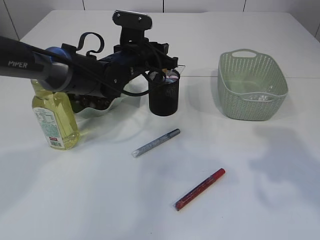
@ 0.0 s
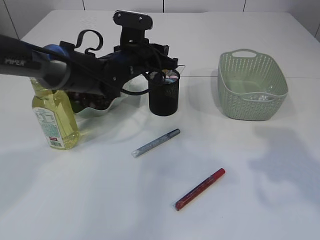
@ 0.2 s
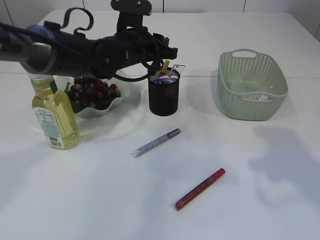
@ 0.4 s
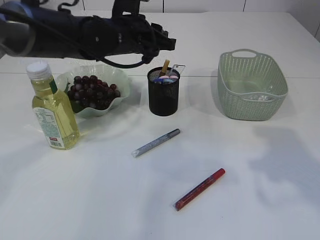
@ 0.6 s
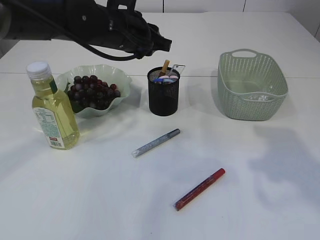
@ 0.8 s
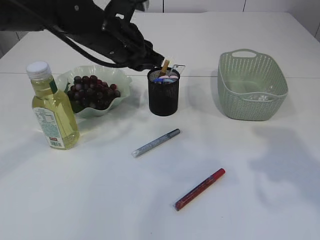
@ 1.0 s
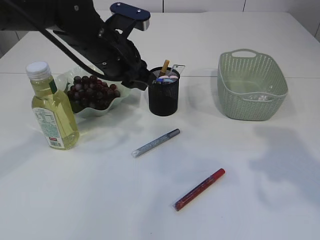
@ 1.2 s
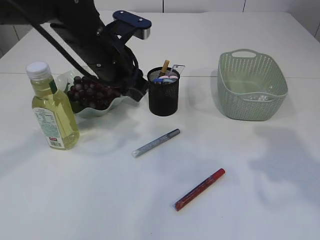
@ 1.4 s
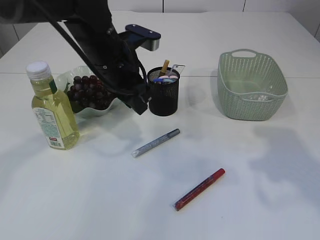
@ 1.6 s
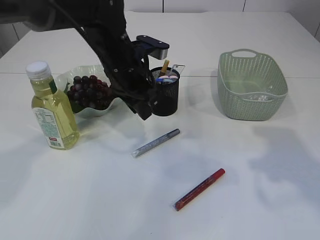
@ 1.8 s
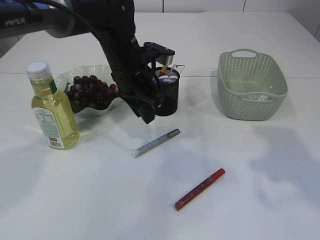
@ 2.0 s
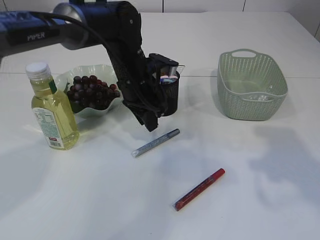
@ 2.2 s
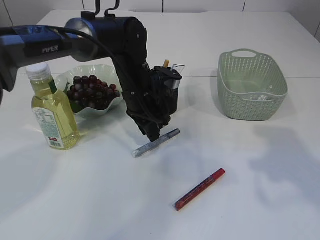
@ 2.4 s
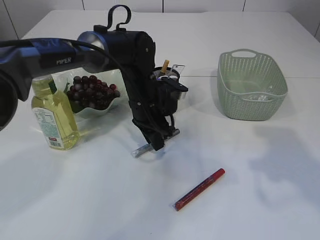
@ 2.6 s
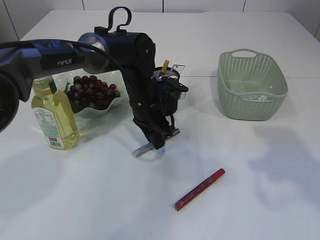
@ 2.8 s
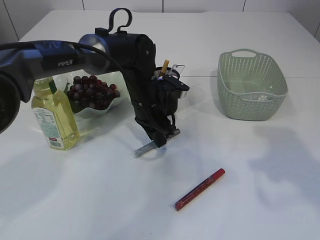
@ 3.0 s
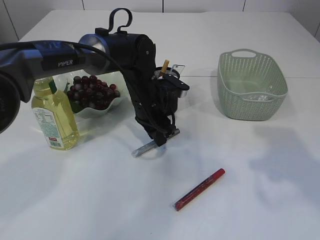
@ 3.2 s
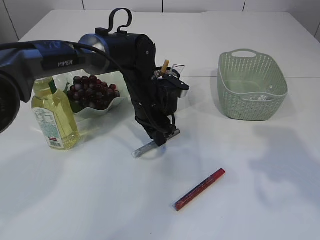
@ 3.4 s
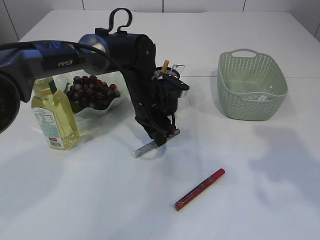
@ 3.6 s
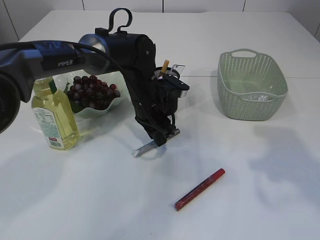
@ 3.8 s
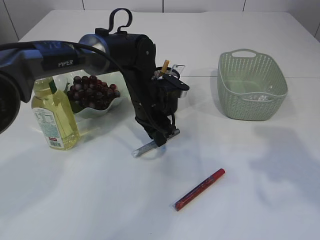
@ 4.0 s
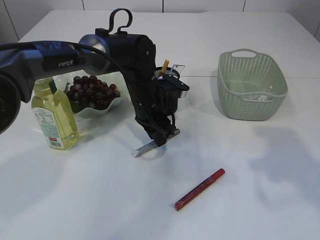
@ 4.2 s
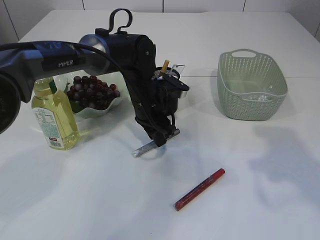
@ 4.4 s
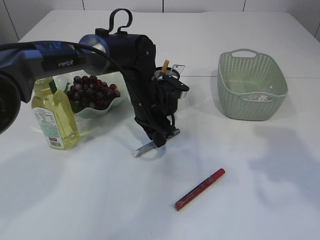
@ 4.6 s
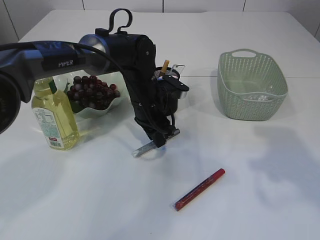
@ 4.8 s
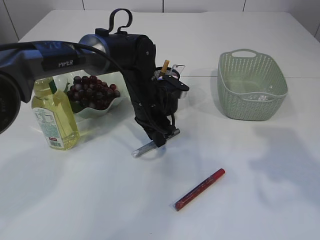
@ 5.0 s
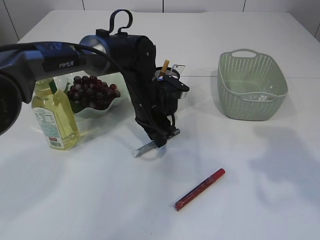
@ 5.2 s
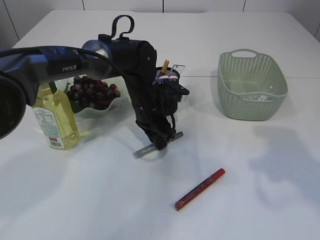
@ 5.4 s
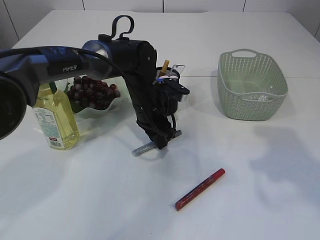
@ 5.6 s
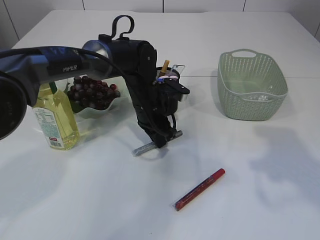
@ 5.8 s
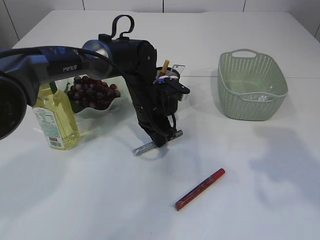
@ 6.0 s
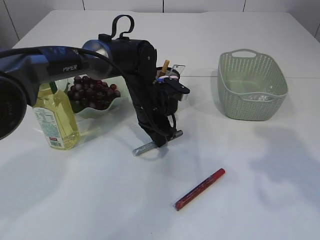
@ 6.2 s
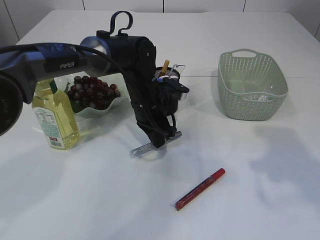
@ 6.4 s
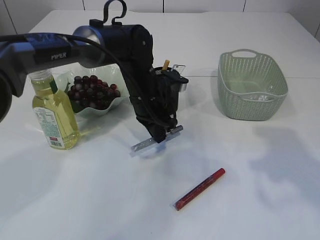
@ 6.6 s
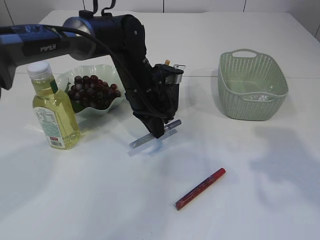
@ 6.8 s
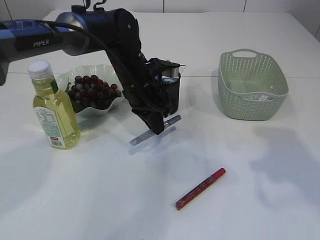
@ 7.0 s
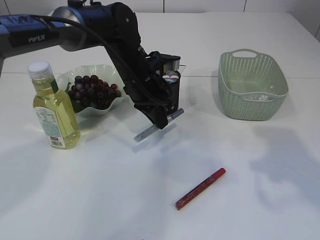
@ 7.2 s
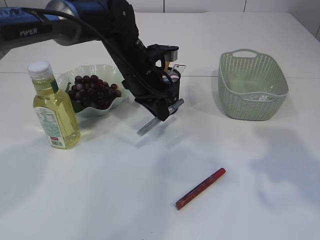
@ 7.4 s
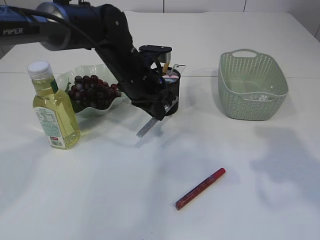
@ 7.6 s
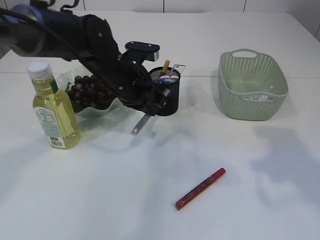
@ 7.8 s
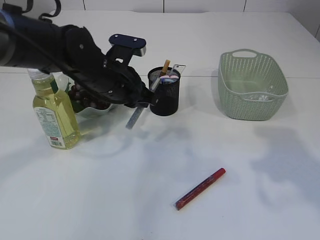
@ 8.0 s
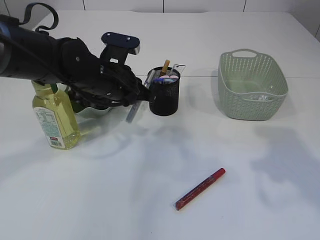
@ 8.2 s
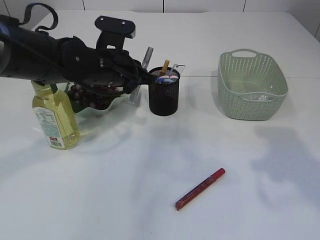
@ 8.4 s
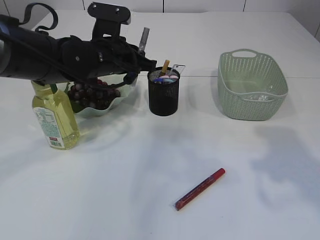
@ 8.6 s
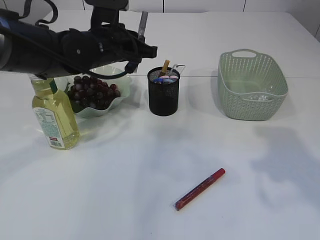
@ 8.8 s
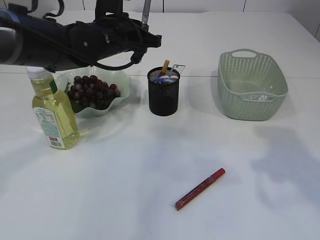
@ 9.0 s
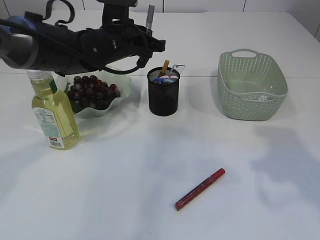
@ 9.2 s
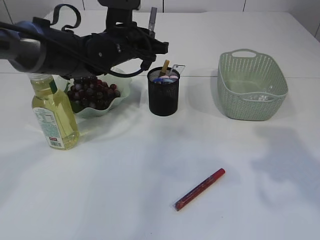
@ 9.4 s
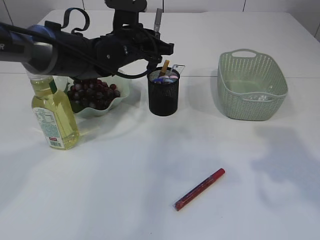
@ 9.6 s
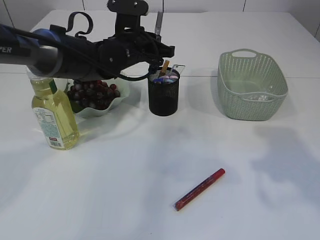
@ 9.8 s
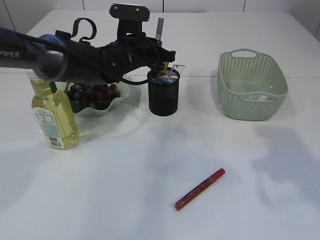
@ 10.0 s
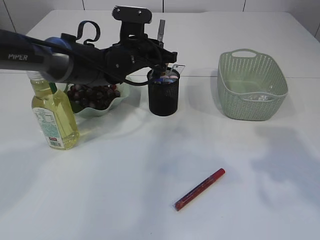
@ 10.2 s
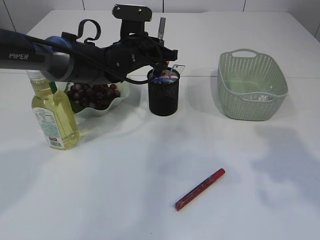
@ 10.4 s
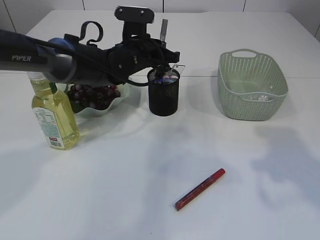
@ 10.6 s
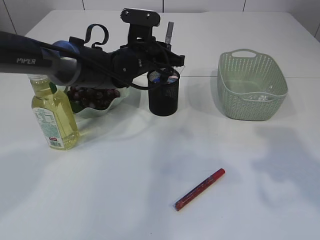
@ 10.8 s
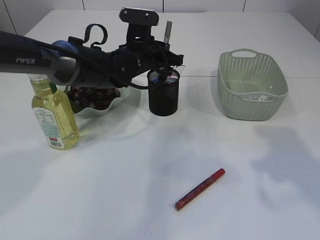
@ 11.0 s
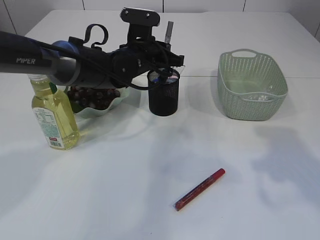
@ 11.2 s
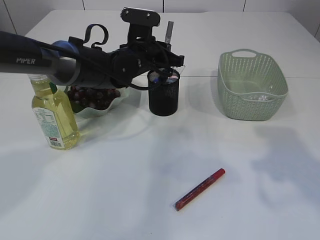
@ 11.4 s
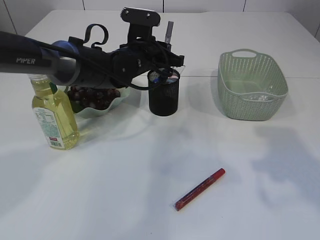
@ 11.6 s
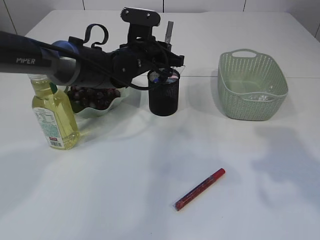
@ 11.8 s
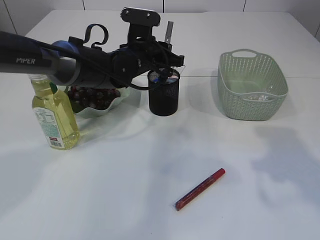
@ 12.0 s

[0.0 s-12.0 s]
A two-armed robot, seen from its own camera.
Step, 0.6 to 8.0 s: pick up the silver glue.
0.0 to 1.6 s: The left gripper travels backward and upward by some 10 cm.
1.6 to 3.0 s: The left gripper shifts approximately 10 cm downward and to the right.
3.0 to 4.4 s: Both grippers stay put.
4.4 to 6.0 s: The left gripper closes up.
6.0 to 7.6 s: The left gripper goes about 5 cm upward.
7.6 to 9.0 s: The left gripper travels upward by roughly 5 cm.
9.0 to 10.4 s: The left gripper travels downward by some 5 cm.
10.4 to 12.0 s: Both grippers stay about where they are.

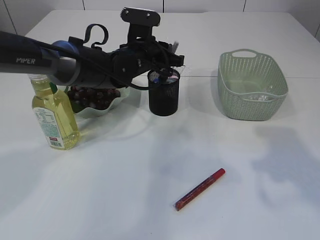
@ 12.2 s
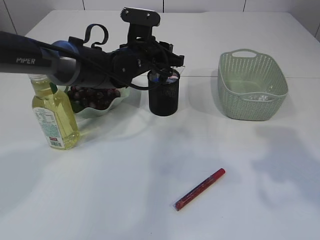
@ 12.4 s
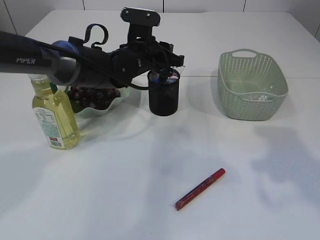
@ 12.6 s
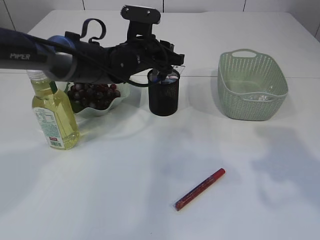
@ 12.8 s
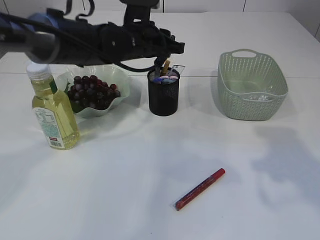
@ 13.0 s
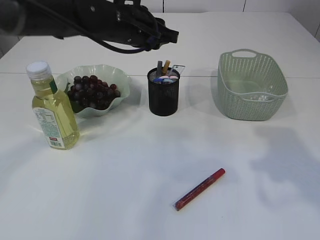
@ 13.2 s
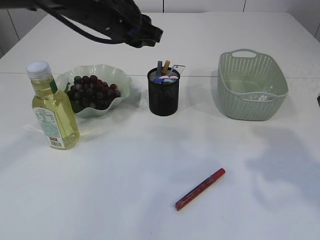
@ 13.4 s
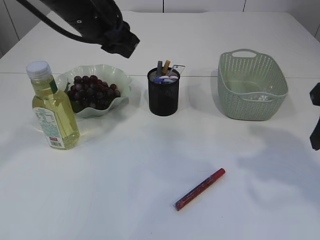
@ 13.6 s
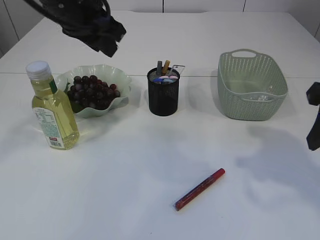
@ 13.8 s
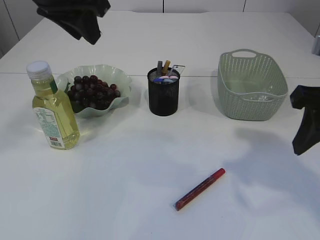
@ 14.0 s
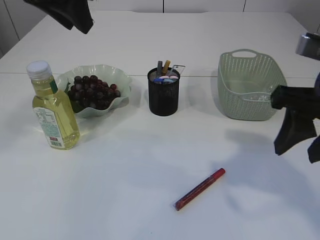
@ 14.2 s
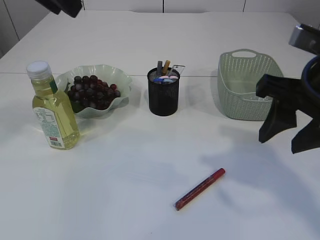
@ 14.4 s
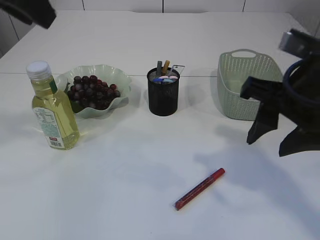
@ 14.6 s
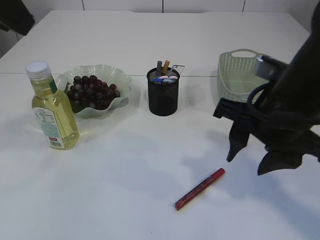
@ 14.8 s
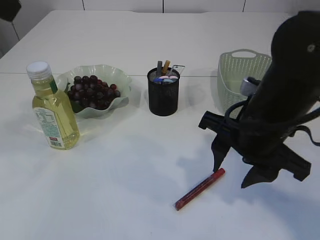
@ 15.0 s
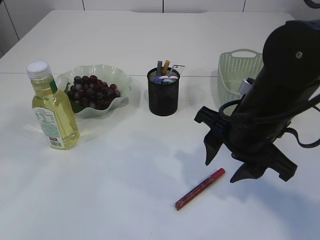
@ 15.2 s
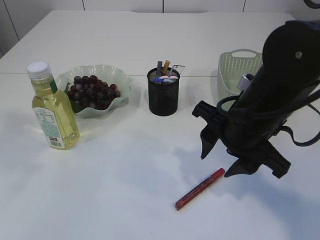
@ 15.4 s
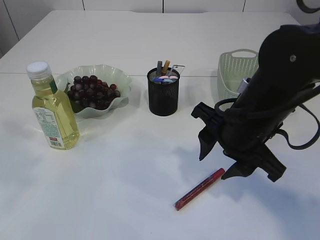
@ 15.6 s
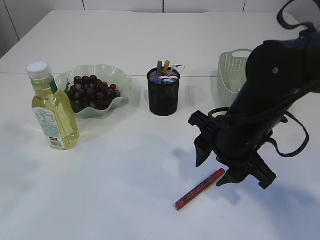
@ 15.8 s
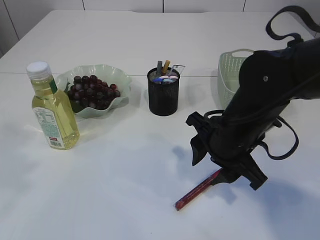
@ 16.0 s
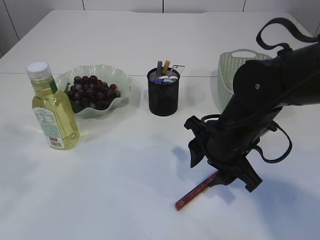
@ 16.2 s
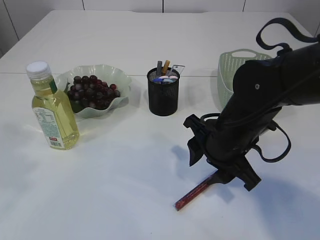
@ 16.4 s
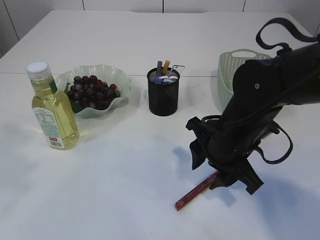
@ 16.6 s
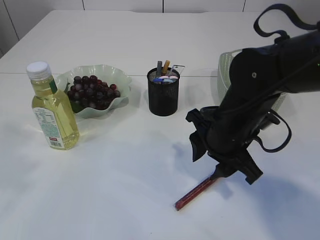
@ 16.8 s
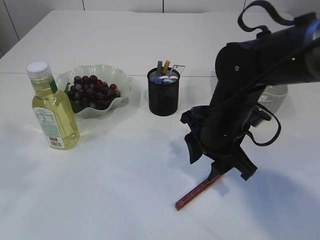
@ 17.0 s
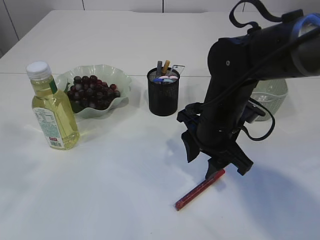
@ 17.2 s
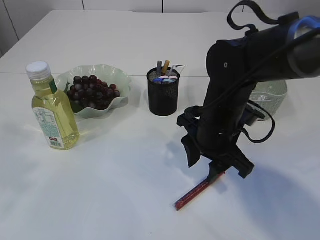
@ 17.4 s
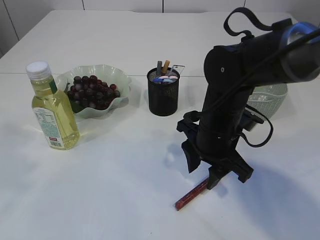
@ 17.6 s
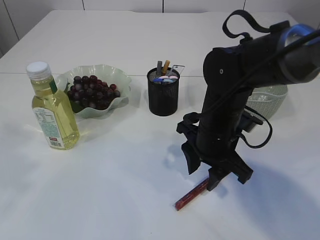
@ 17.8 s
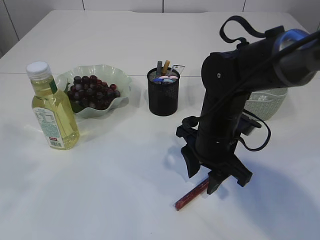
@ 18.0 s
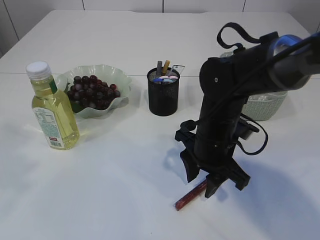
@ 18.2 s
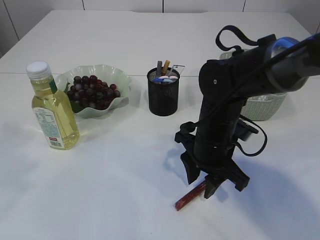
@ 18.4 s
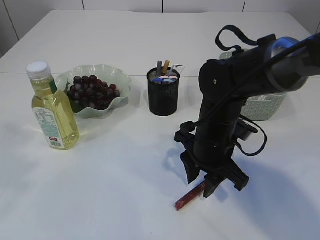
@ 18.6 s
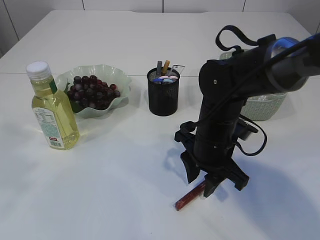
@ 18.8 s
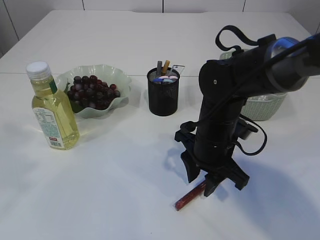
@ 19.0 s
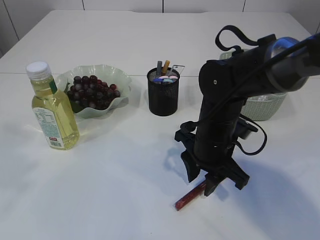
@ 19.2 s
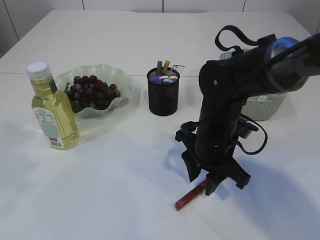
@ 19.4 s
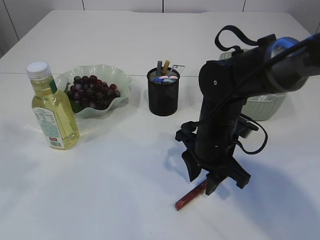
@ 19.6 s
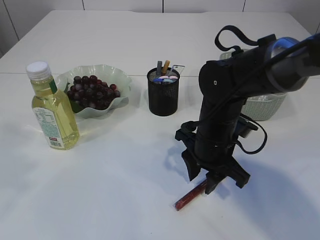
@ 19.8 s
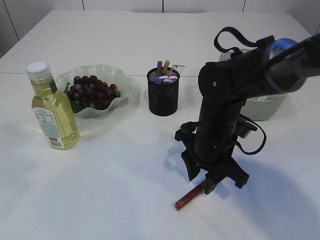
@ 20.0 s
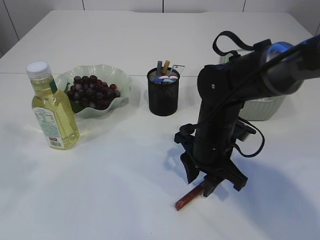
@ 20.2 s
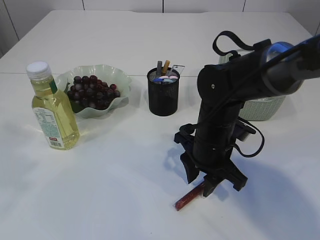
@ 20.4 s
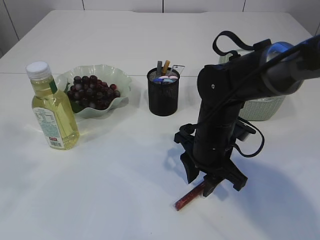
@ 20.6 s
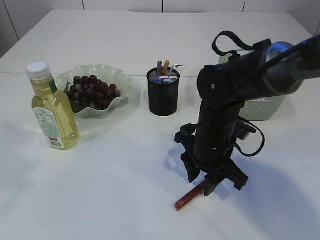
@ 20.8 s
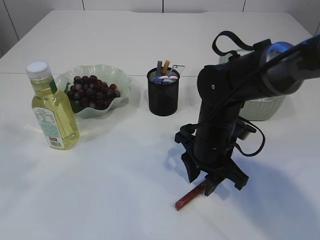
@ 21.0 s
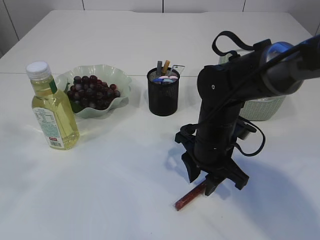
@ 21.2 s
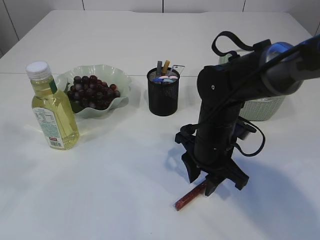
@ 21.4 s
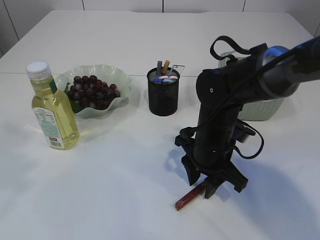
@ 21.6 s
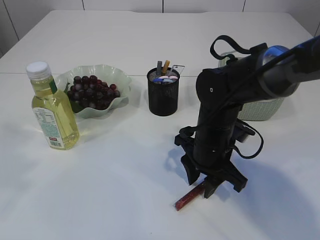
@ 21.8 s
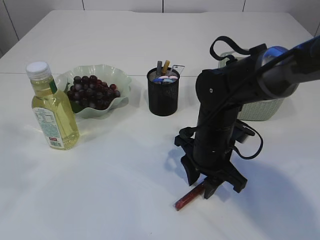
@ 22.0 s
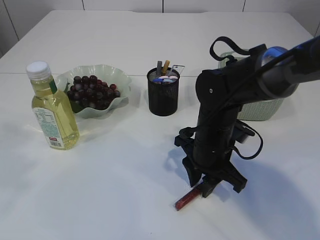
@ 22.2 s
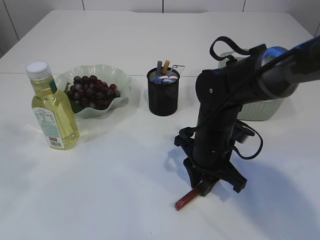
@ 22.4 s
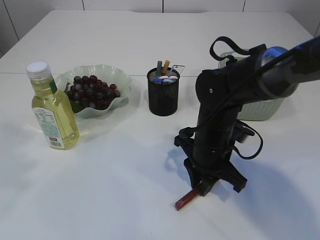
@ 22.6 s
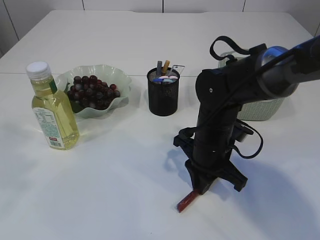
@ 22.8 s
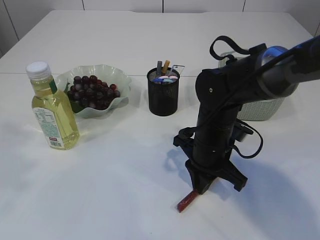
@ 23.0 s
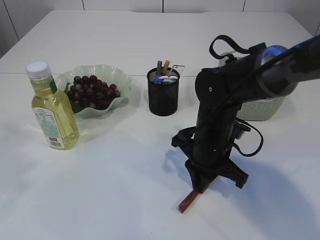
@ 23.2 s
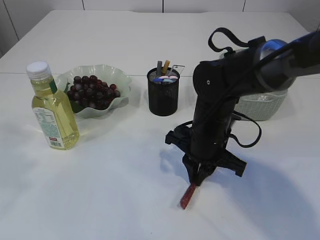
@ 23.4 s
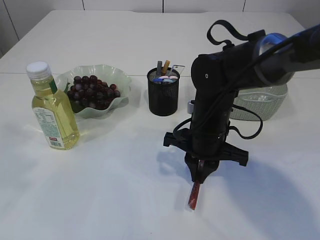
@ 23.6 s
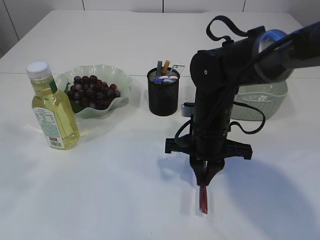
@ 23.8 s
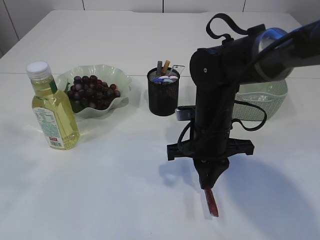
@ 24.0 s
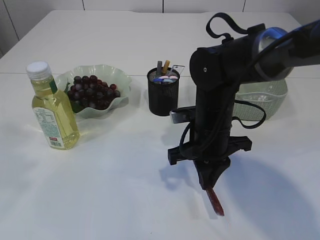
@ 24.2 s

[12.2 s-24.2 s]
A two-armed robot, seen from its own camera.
12.2 to 13.8 s: The left gripper heads upward, backward and to the left, covering approximately 20 cm.
13.8 to 15.2 s: The left gripper heads backward, upward and to the left, covering approximately 20 cm; the right gripper moves to the left and downward, some 15 cm.
15.2 to 16.6 s: The left gripper moves roughly 5 cm; the right gripper is displaced downward by approximately 5 cm.
16.6 to 18.2 s: The grippers make only small movements.
18.2 to 21.2 s: Both grippers stay about where they are.
21.2 to 22.6 s: The two grippers keep their place.
